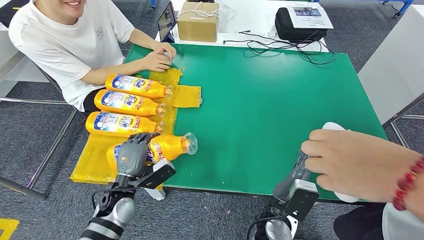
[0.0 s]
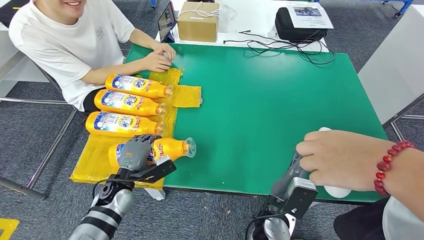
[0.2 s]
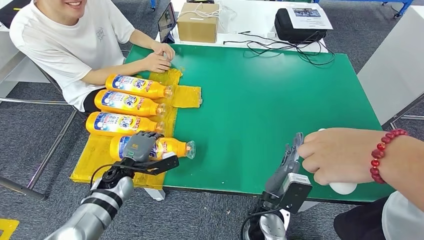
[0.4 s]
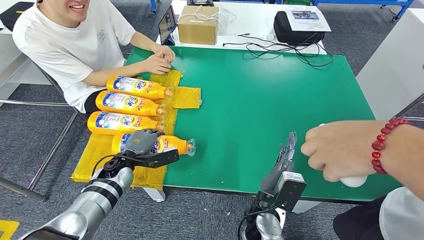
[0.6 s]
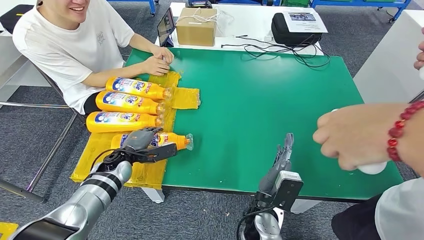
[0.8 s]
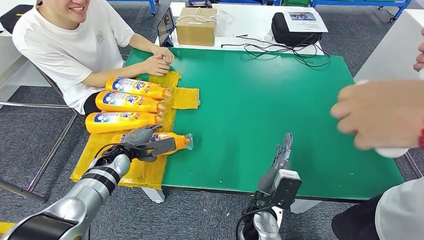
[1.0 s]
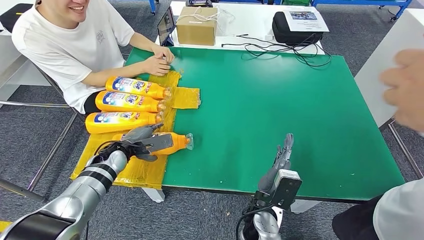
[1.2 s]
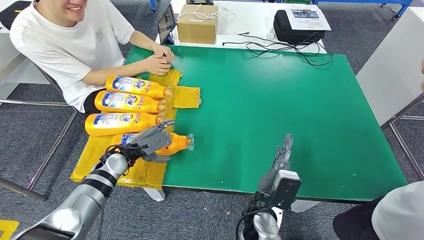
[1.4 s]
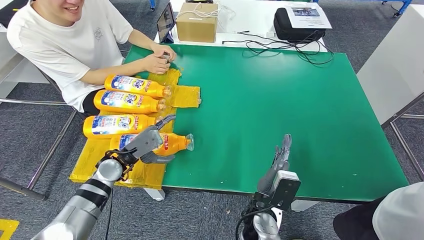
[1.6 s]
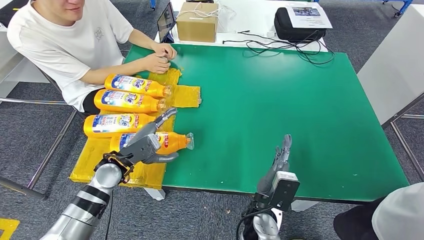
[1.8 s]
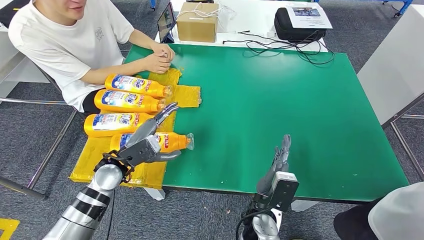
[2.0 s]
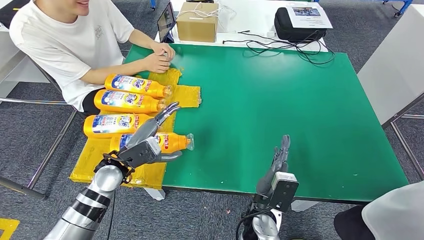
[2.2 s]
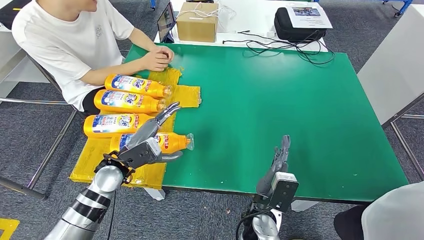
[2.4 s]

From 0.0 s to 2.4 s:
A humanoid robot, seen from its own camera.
Step, from 0.0 s to 2.4 s: Flip the bottle to face forward.
